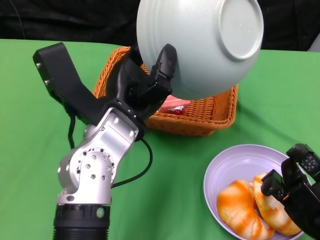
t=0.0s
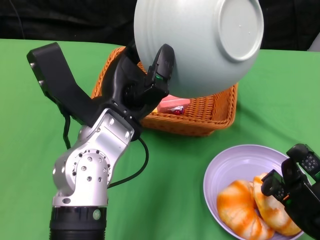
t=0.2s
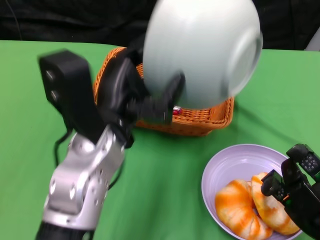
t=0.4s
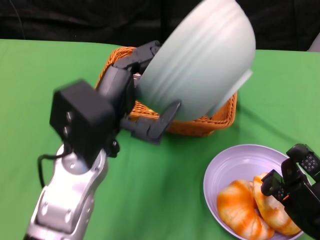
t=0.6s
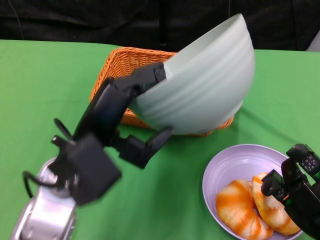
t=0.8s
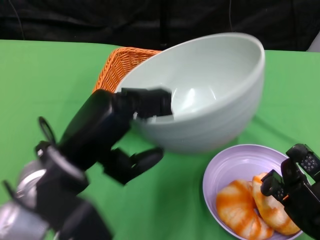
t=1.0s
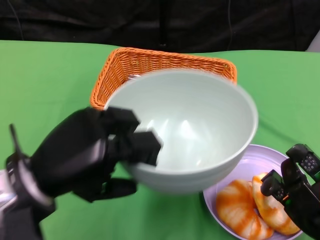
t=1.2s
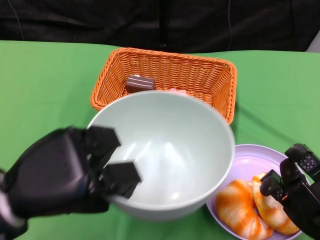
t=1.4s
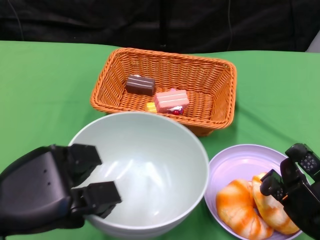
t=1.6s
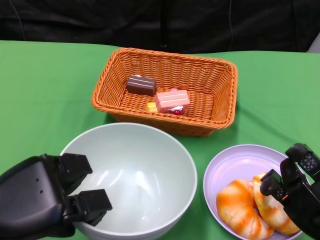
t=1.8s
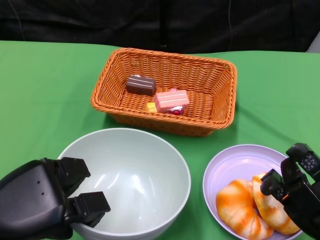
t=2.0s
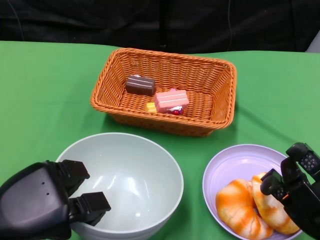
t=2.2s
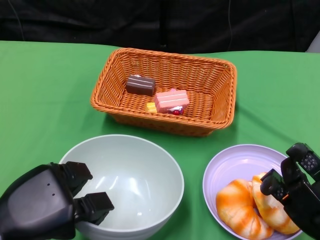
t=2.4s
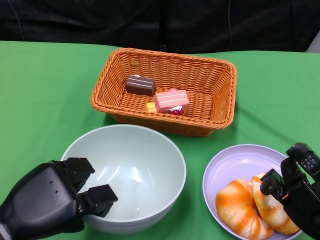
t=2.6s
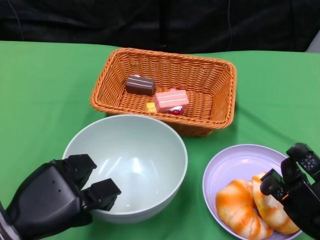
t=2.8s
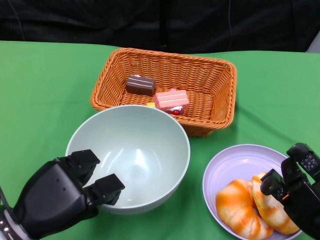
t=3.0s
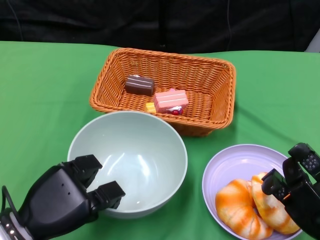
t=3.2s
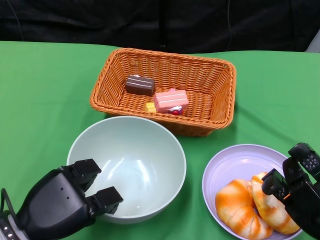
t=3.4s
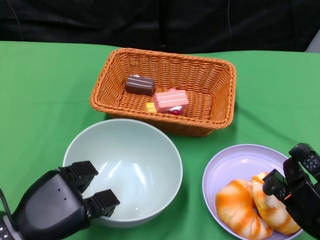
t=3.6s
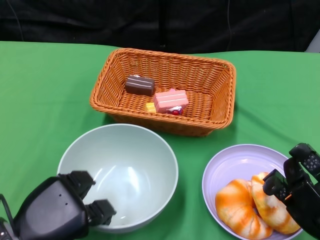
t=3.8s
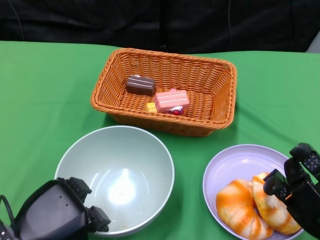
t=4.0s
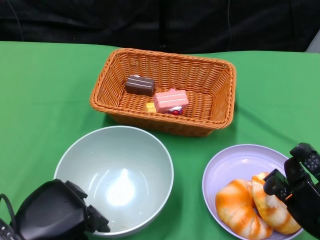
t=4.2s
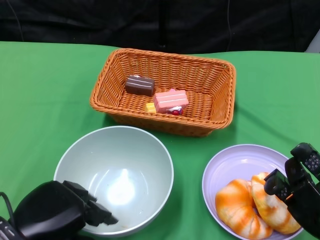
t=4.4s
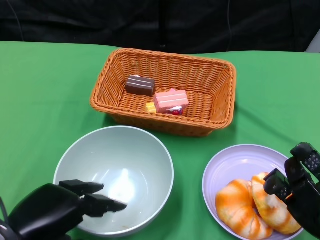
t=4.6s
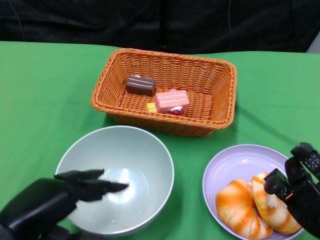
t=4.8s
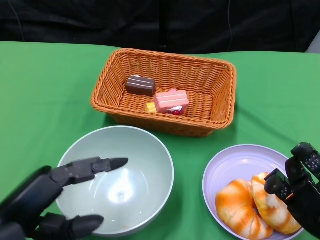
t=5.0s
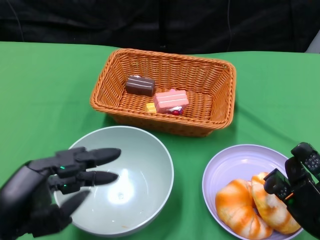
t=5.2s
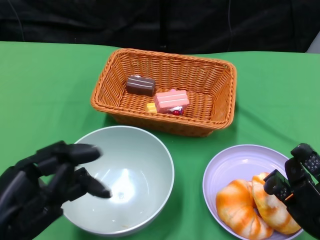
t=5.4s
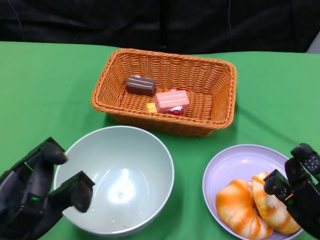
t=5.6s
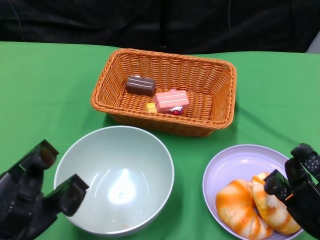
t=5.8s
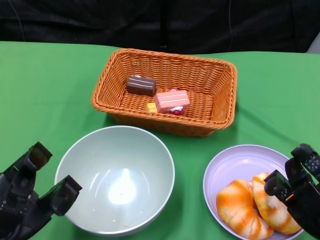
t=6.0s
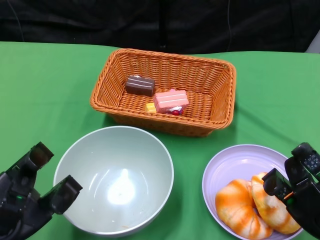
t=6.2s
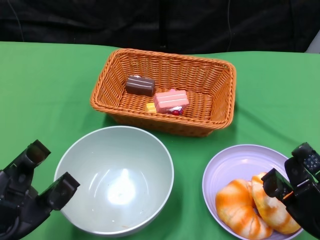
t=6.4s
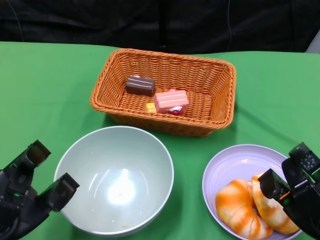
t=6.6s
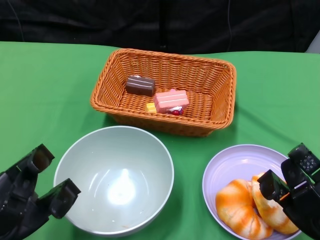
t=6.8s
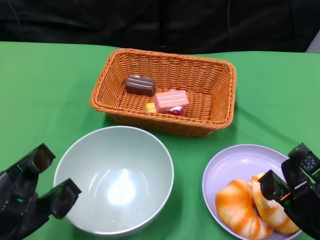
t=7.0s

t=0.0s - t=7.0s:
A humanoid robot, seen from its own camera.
Step, t=0.0s - t=4.4s: Place the bowl on the table with the left gripper.
t=0.0s - t=1.4s: The left hand travels to the left and backward by some 15 cm.
t=1.4s - t=2.8s: The left hand heads downward, covering some 10 cm.
t=2.8s - t=4.2s: The hands move only a little.
t=4.2s - t=5.6s: The left hand moves about 5 cm.
t=5.6s - t=7.0s: There are only small adjustments of the hands.

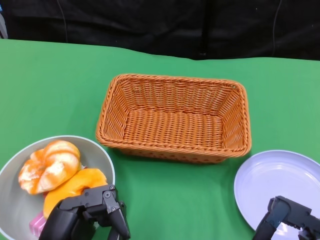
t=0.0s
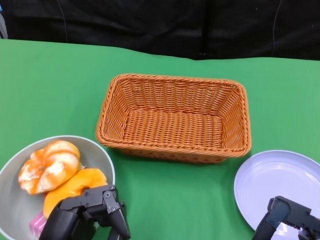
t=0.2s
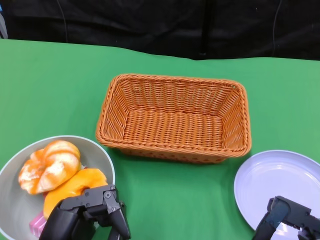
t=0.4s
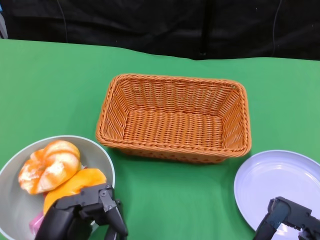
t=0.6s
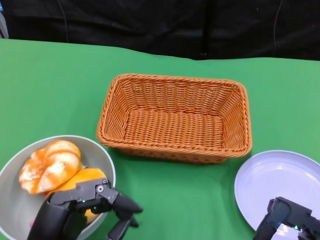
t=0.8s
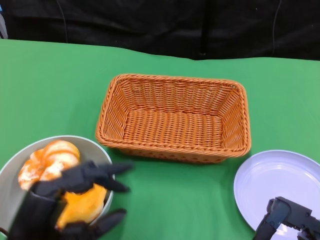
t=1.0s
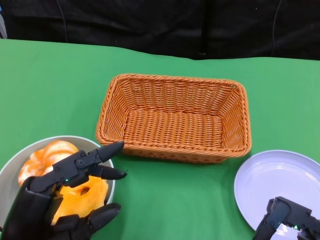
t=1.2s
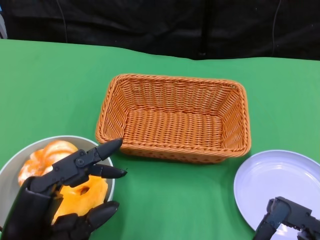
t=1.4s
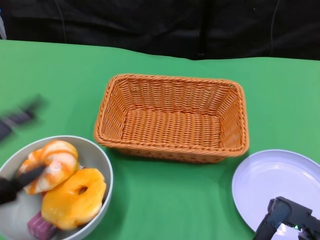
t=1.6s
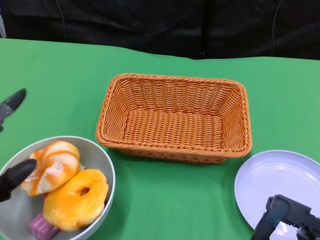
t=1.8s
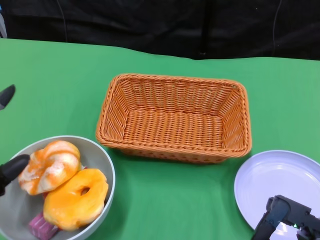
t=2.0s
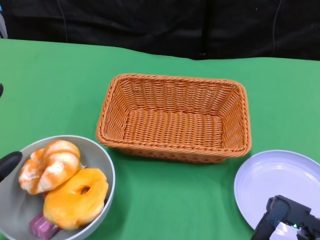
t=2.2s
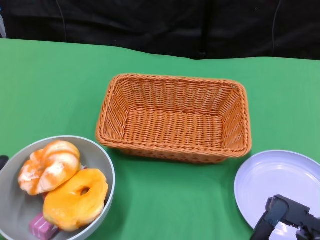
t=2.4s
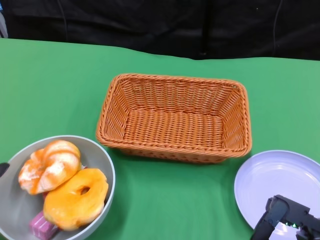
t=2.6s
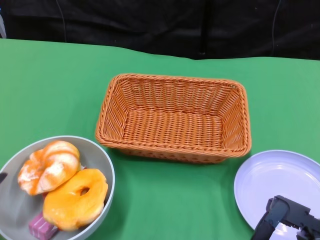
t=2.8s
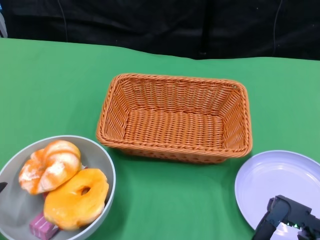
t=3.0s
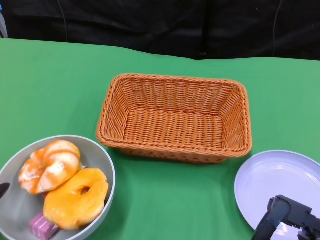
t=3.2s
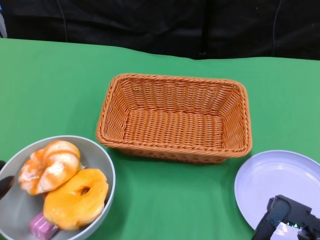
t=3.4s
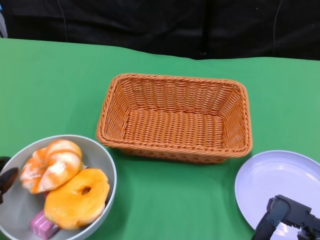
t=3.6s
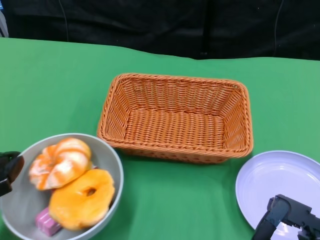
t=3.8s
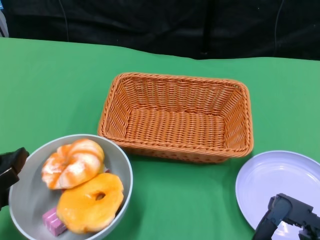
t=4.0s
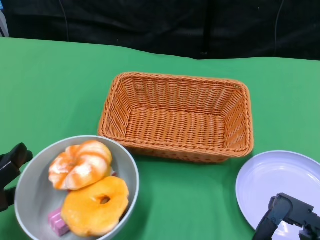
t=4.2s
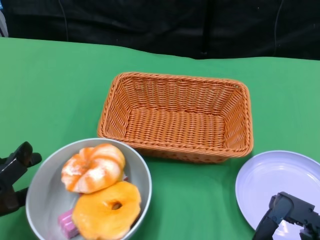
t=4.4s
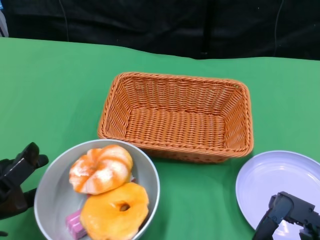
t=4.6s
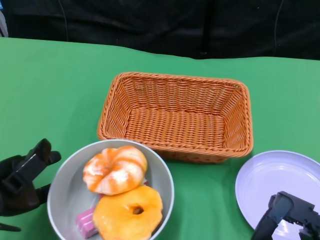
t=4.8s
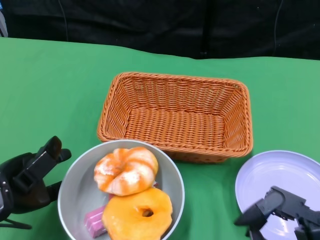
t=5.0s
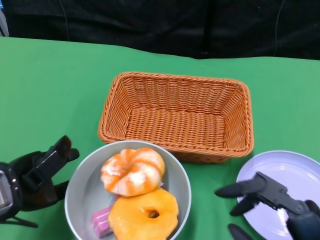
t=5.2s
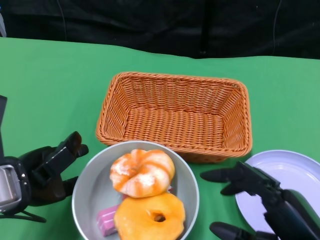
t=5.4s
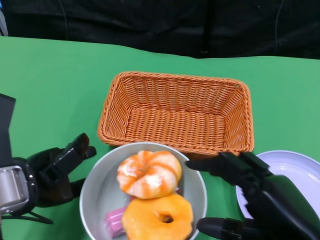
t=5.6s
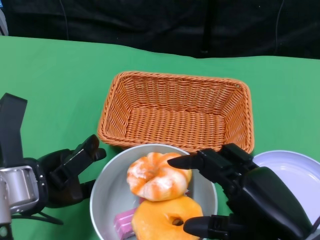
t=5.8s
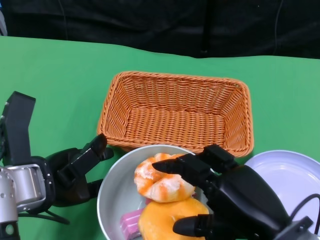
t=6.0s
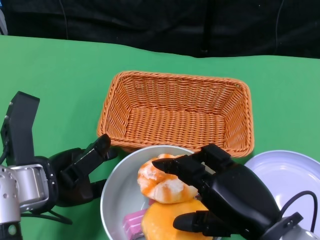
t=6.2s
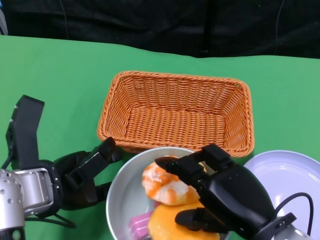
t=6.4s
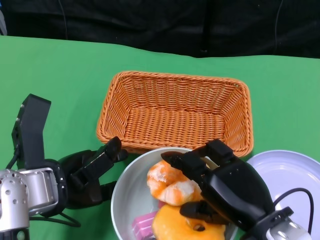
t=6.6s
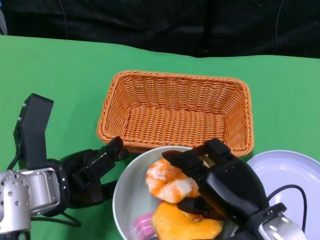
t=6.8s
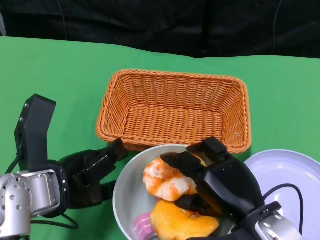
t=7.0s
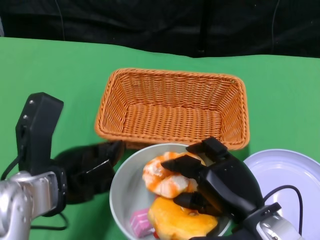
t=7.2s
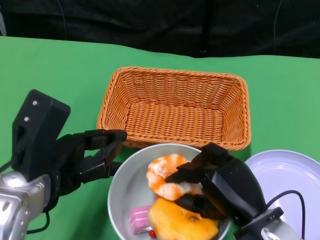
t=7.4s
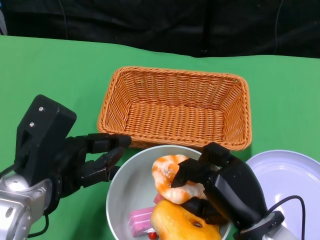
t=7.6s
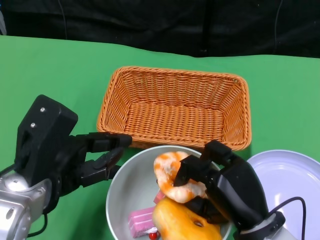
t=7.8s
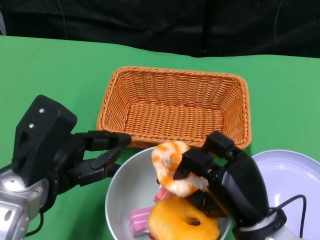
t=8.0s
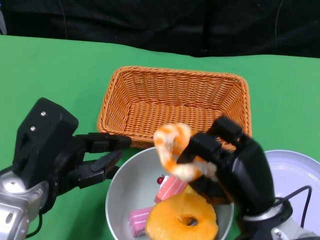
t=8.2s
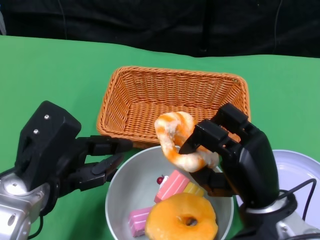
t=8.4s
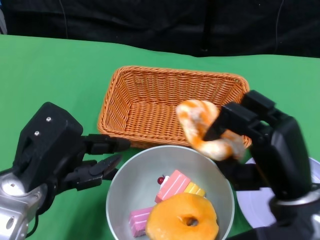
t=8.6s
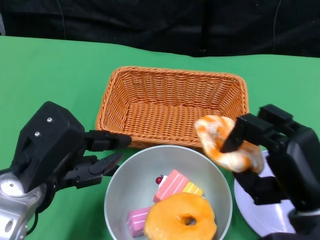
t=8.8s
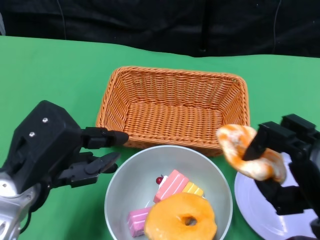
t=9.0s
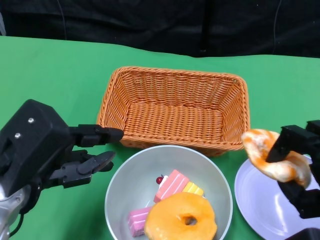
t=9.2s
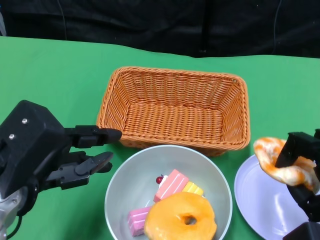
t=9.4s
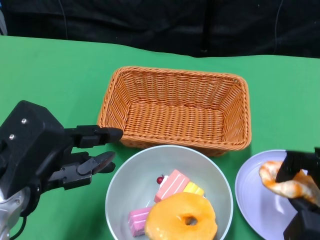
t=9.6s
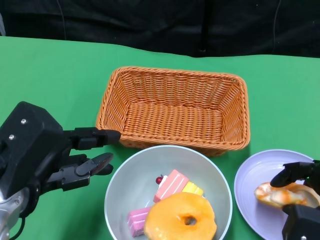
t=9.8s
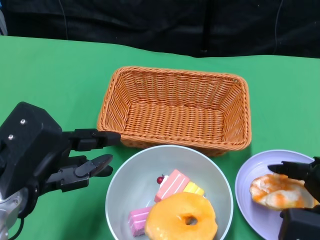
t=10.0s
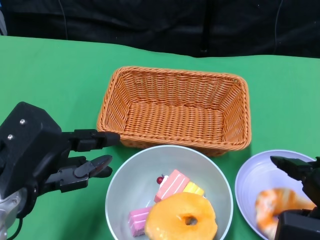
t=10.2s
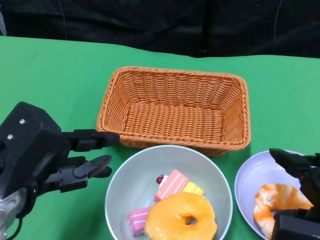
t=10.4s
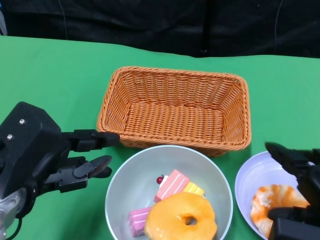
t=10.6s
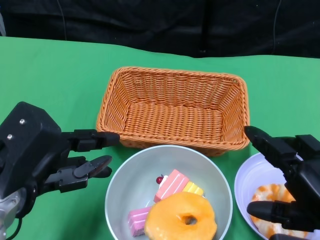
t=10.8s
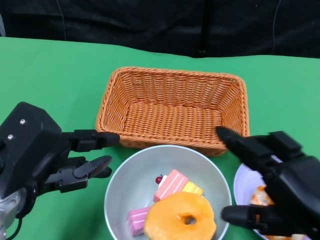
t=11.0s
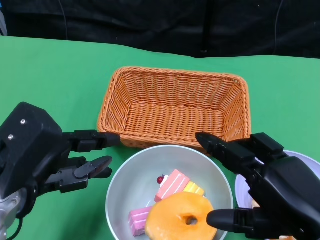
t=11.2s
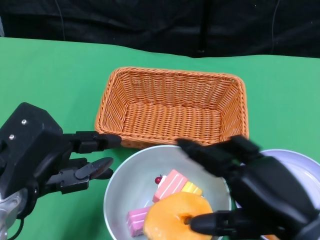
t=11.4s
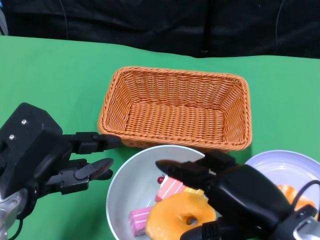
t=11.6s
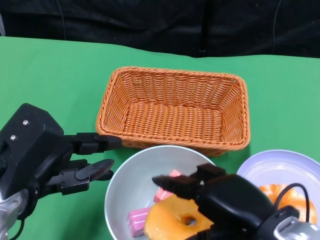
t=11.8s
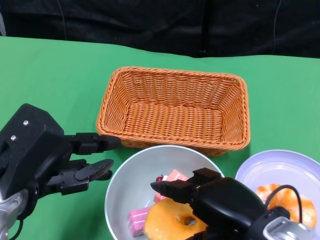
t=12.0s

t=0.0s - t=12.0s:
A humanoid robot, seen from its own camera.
Step, t=0.0s - t=5.6s: Push the bowl to the center of the table using the left gripper.
t=1.6s - t=3.0s: The left hand moves approximately 5 cm.
t=3.0s - t=4.4s: The left hand changes place by some 5 cm.
t=4.4s - t=6.0s: The right hand shifts roughly 10 cm forward and upward, while the left hand moves to the right, some 10 cm.
t=6.0s - t=7.6s: The right hand moves downward, approximately 10 cm.
t=7.6s - t=9.0s: The right hand is displaced to the right and upward by some 10 cm.
t=10.4s - t=12.0s: The right hand shifts approximately 10 cm to the left.

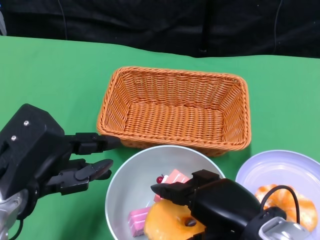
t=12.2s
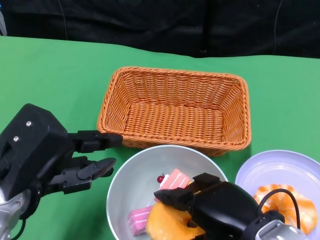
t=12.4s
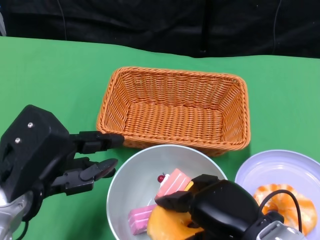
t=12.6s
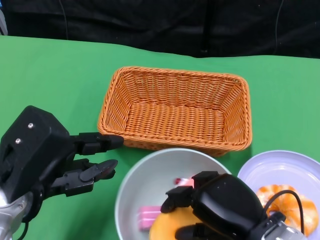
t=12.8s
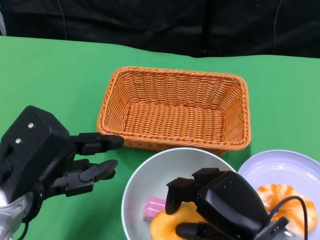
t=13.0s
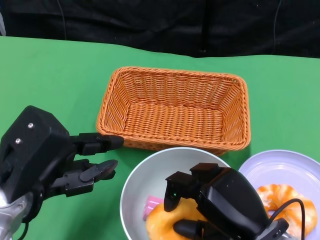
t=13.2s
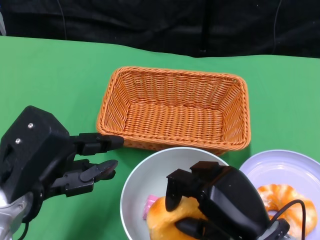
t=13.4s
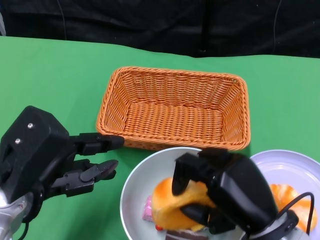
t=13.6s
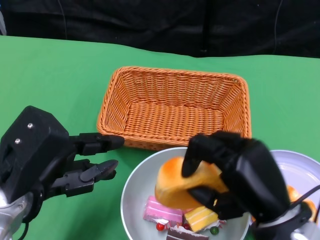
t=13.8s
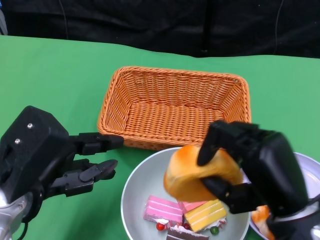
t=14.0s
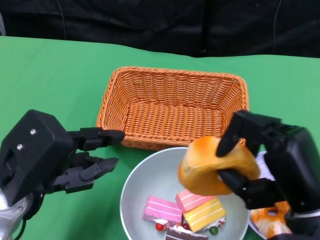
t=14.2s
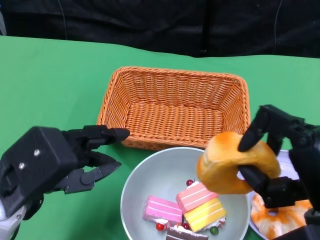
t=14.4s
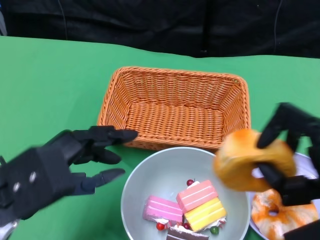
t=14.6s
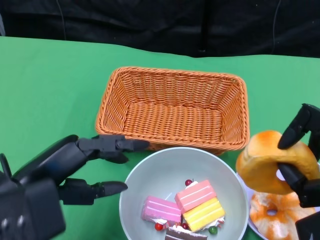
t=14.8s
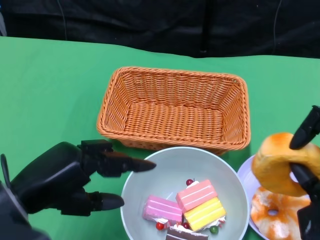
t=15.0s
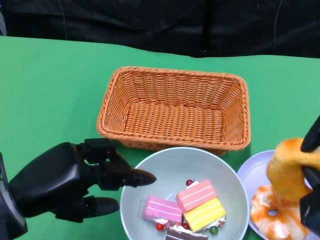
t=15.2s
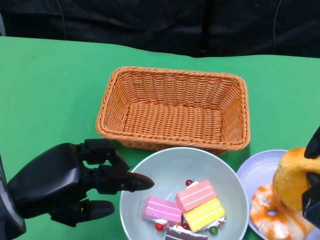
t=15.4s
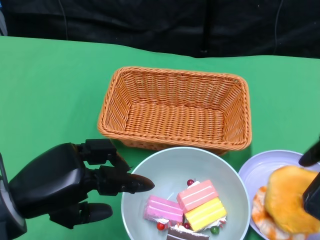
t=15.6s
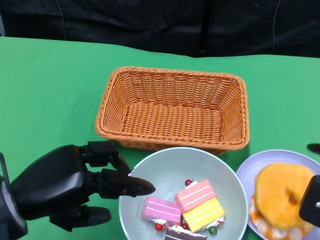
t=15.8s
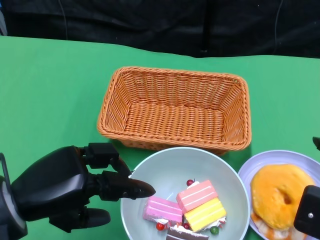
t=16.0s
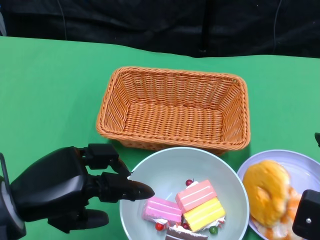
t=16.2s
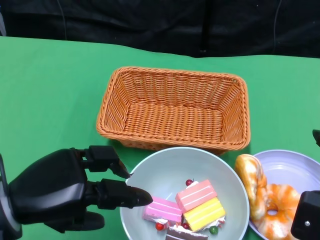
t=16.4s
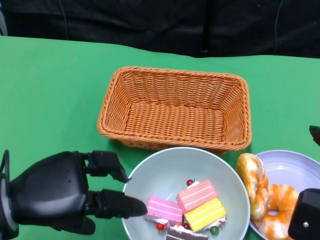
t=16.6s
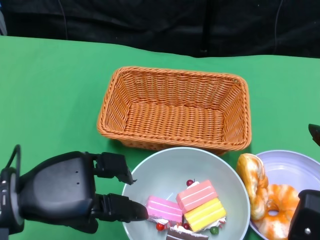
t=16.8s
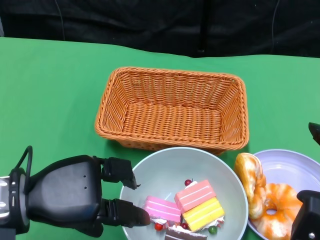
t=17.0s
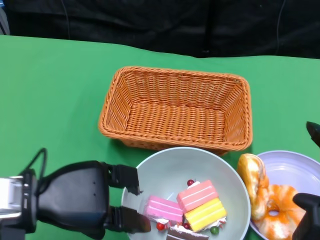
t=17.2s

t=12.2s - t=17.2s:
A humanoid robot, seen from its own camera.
Step, t=12.2s - t=15.8s: Pick up the bread with the right gripper and place it on the plate.
t=13.8s - t=15.6s: The right hand travels to the right by about 15 cm.
t=15.6s - t=17.2s: The right hand moves approximately 5 cm.
